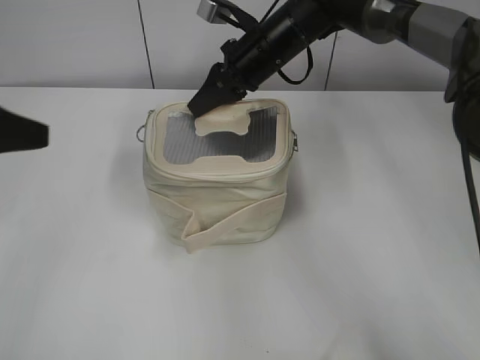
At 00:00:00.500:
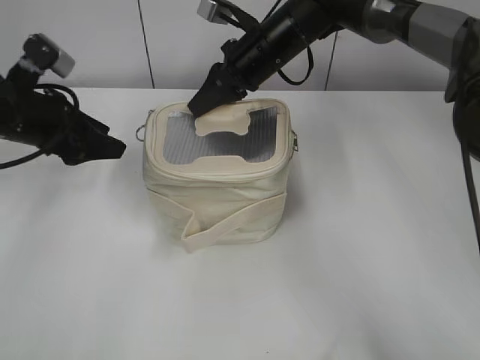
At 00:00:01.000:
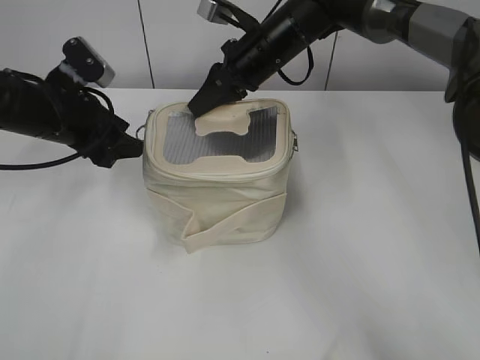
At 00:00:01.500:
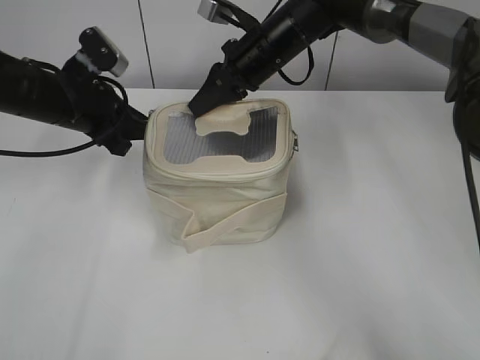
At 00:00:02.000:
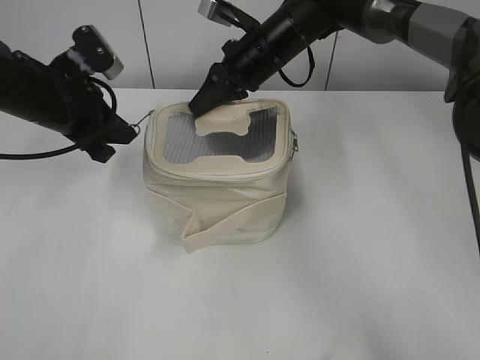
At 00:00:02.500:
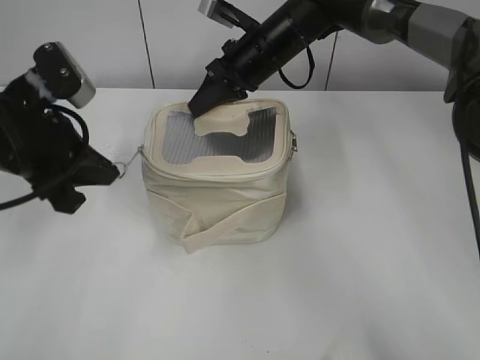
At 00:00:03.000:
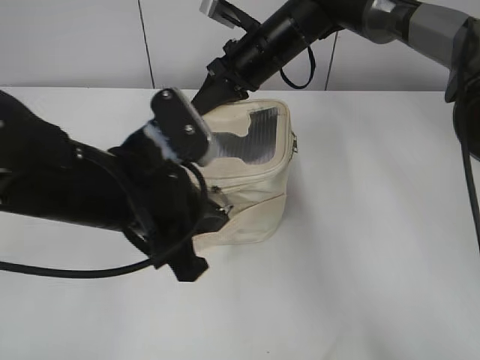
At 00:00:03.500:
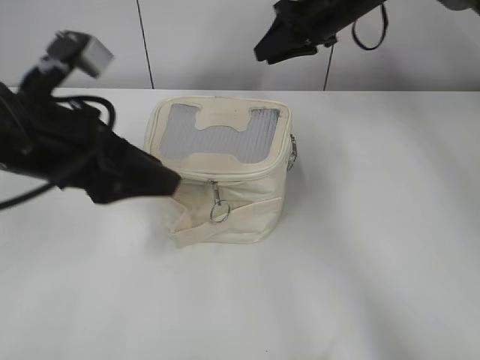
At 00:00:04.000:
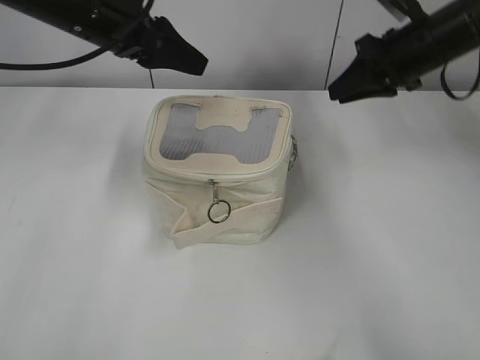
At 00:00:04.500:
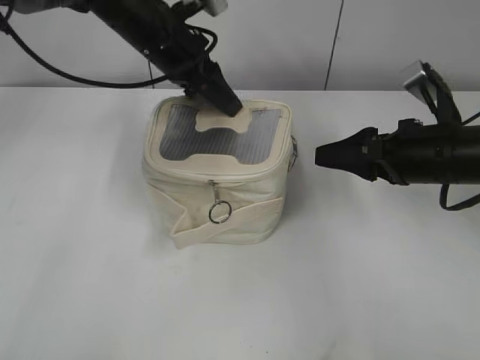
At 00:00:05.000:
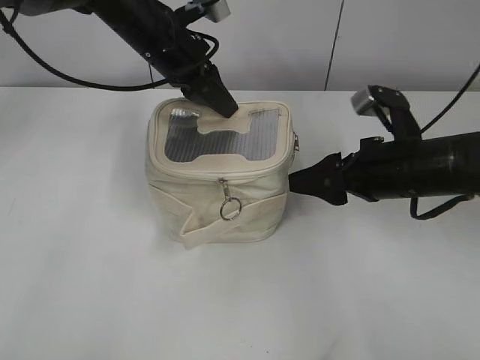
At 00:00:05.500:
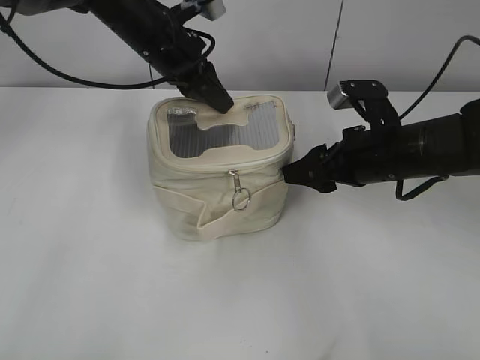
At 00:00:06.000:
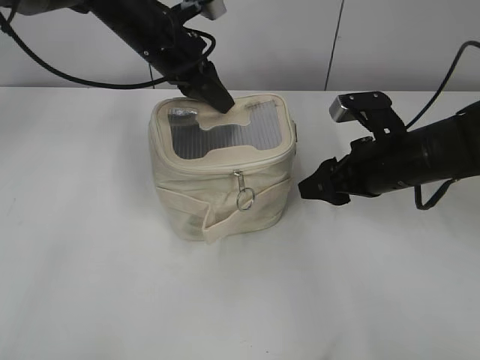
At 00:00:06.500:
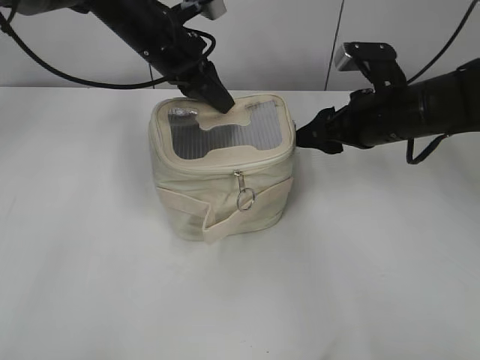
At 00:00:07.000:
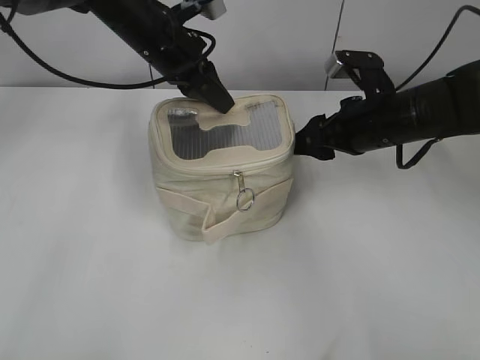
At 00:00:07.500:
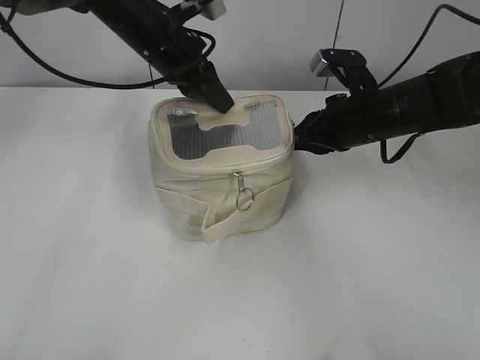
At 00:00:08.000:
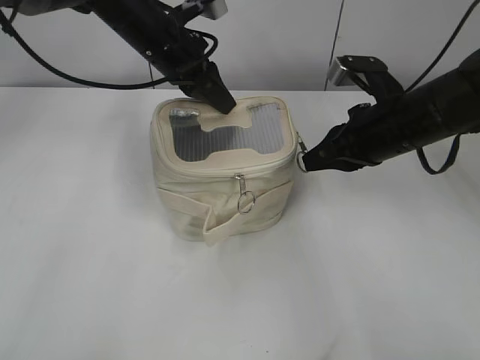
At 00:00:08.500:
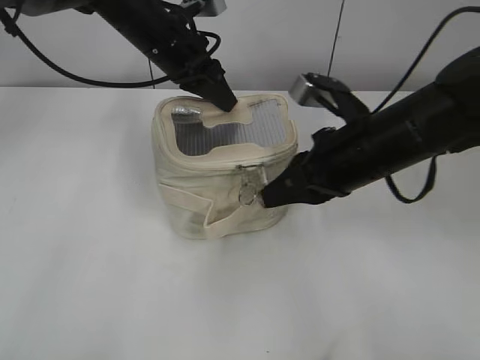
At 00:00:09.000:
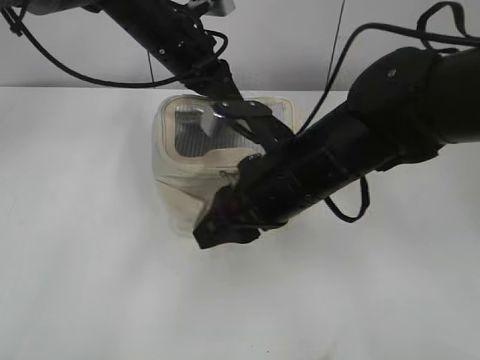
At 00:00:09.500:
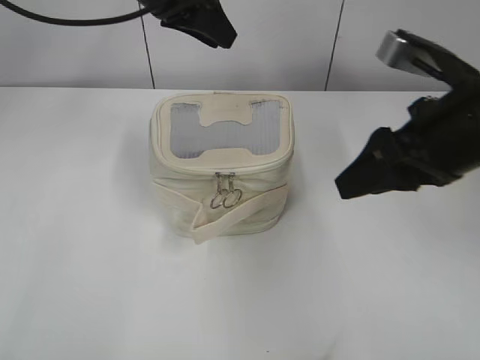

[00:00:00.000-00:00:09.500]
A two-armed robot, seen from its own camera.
Step, 00:00:00.000 to 00:00:03.000: Zip up the bag with your left hand.
Step, 00:00:03.500 to 00:00:09.000: Zip up the bag with your right hand.
00:00:00.000 to 00:00:02.000: The left gripper moves forward, downward and to the right, roughly 20 cm, and closes its fingers.
00:00:02.000 to 00:00:04.000: The right gripper goes about 20 cm to the right. Meanwhile the left gripper moves upward, some 10 cm, reaches some 15 cm backward, then returns, and opens.
00:00:04.000 to 00:00:05.500: The right gripper goes approximately 15 cm backward and downward, and opens its fingers. The left gripper is displaced forward, to the right and downward by approximately 10 cm, and closes up.
00:00:05.500 to 00:00:07.500: The right gripper goes approximately 5 cm forward, and closes up.
00:00:07.500 to 00:00:09.500: The left gripper shifts some 10 cm upward, and opens up. The right gripper heads backward and upward, covering about 15 cm, moves roughly 10 cm to the left and comes back, and opens.

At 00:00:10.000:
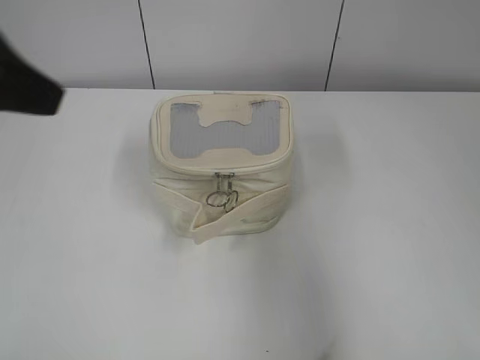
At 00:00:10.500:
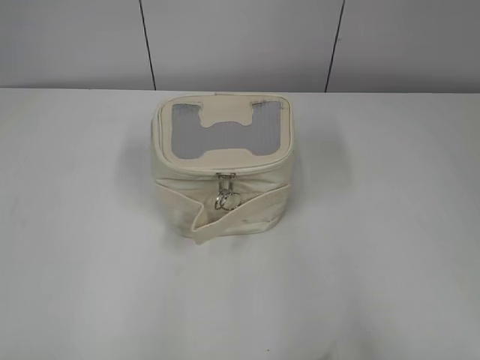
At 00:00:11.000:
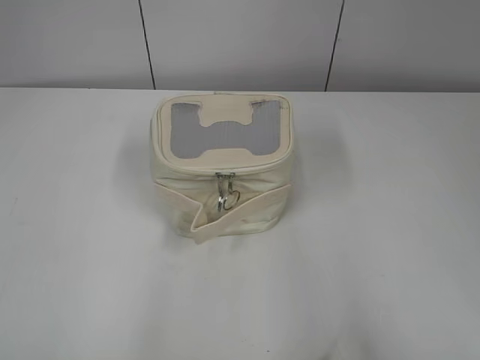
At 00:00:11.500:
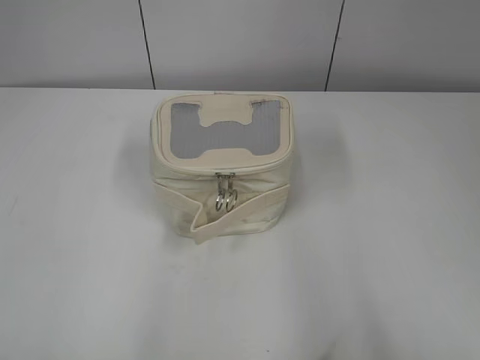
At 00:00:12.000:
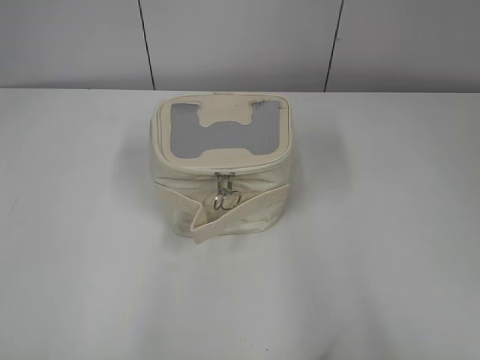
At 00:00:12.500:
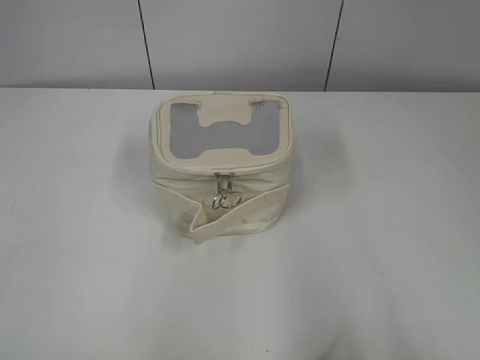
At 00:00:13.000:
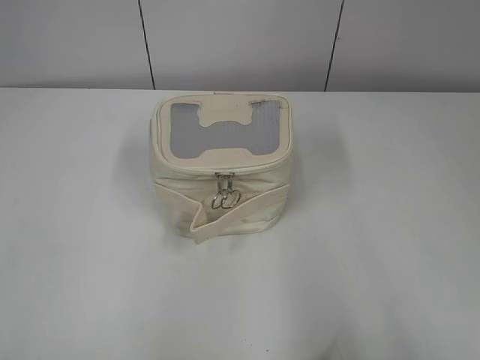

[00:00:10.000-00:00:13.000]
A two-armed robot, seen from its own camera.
00:00:10.000 to 00:00:11.500: The right gripper goes about 15 cm backward and to the right. Meanwhile the left gripper goes some 25 cm backward and to the left, and opens up.
